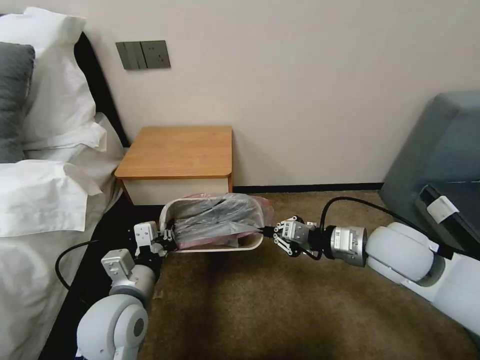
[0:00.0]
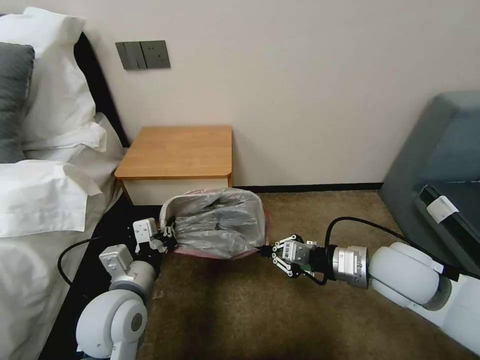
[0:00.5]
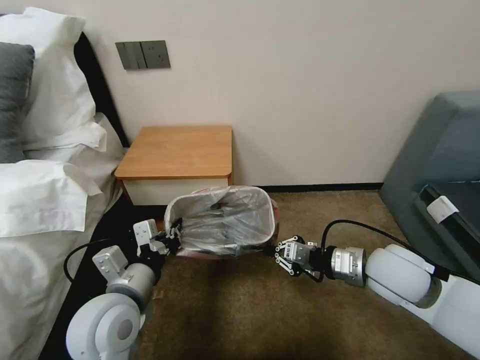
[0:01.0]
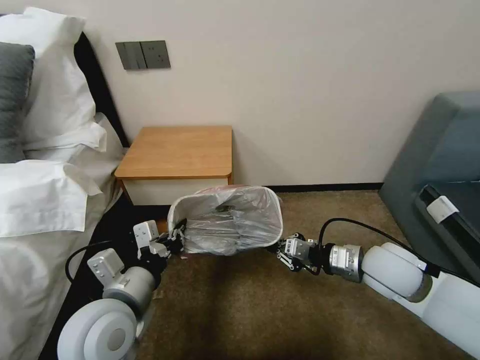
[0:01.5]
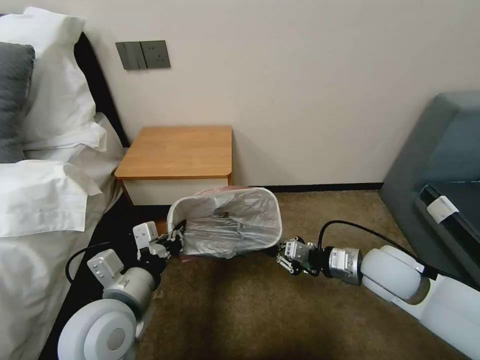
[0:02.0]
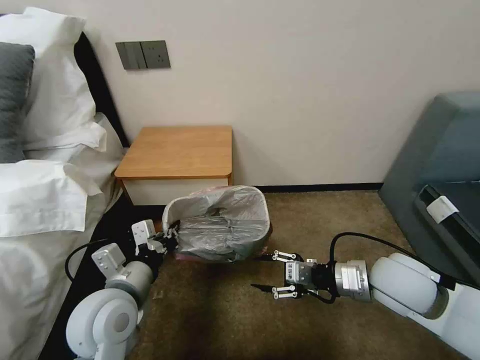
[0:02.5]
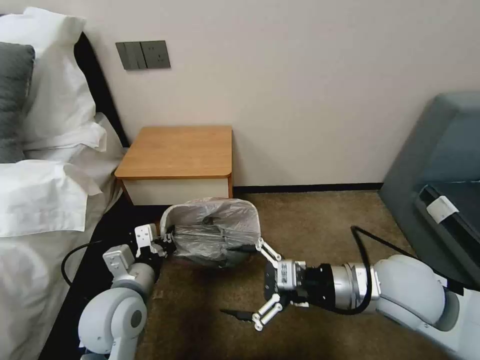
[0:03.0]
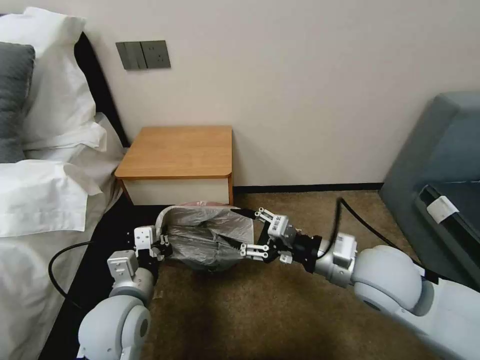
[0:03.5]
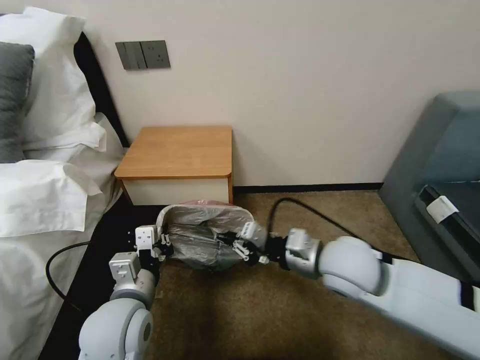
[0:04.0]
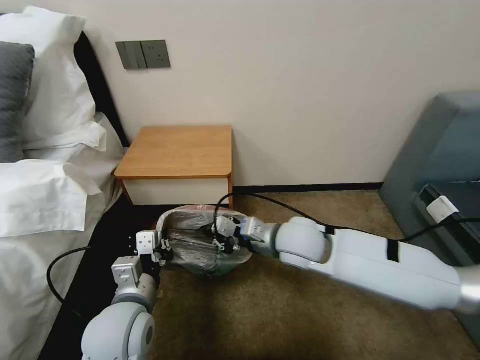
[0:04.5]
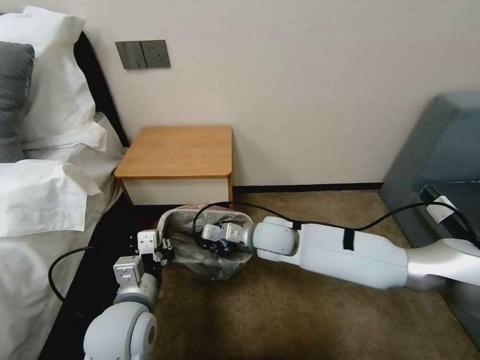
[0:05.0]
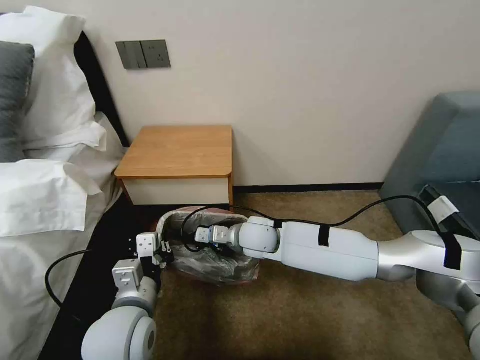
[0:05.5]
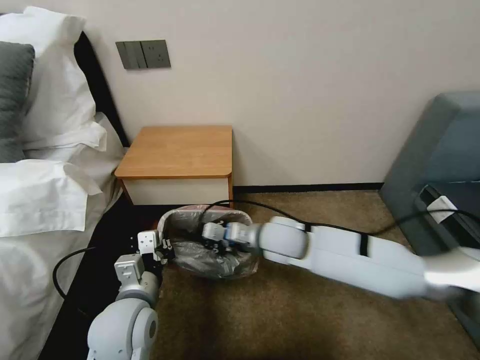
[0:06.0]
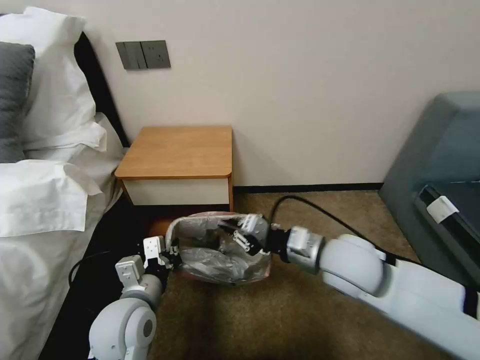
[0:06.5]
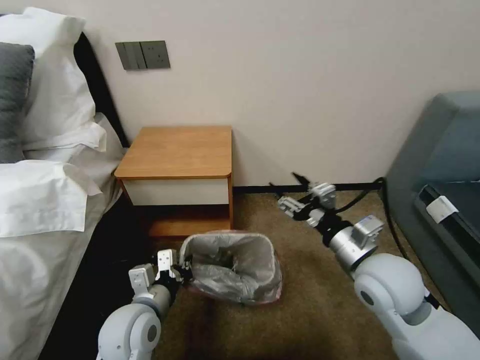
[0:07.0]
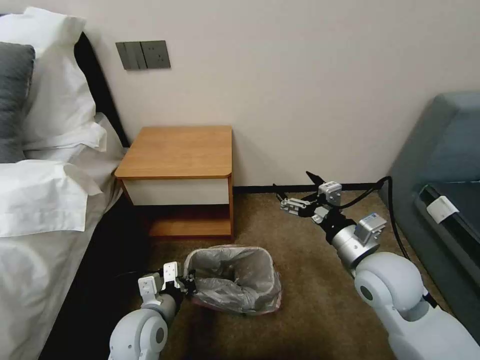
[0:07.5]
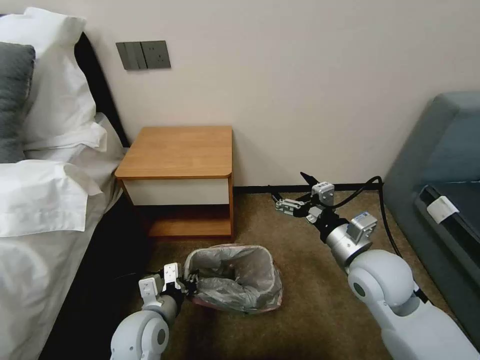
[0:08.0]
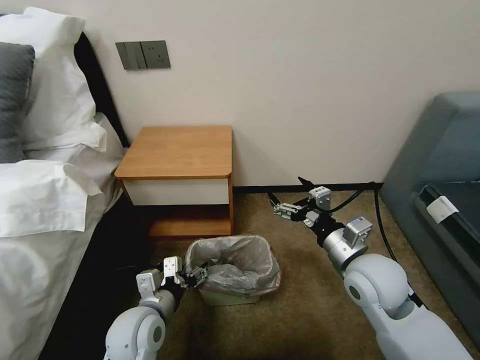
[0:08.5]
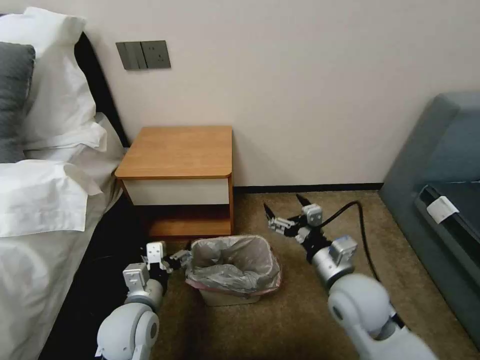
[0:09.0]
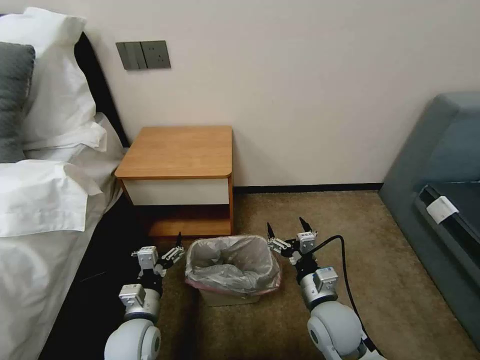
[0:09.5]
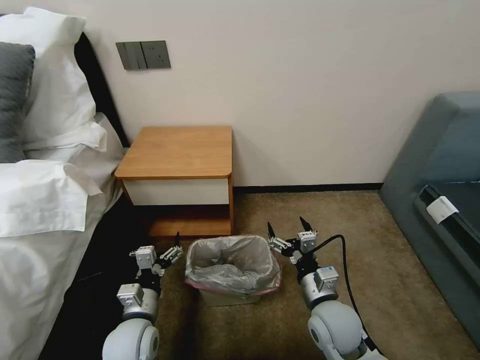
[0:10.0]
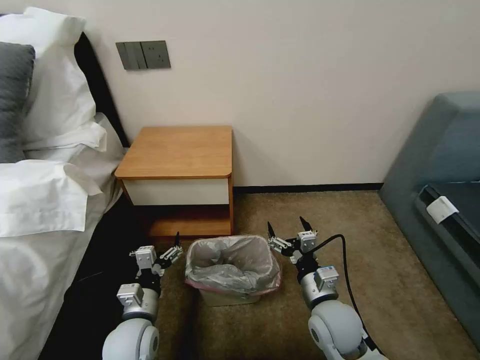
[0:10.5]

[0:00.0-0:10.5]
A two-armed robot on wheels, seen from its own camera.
Task of the whole recording: Pick up the garbage bag from the table and place it over the trash can.
0:00.0 to 0:02.0: The right gripper shifts about 5 cm downward.
0:02.0 to 0:04.0: The right gripper heads to the left, covering approximately 10 cm, and opens, then closes again.
0:04.0 to 0:06.5: The right gripper goes to the left and returns, some 15 cm each way.
0:06.5 to 0:08.5: The right gripper heads to the right, covering some 5 cm, and opens, while the left gripper shifts about 5 cm downward, and opens.
0:08.5 to 0:10.5: The left gripper moves downward, about 5 cm. The right gripper moves downward and to the left, about 15 cm.

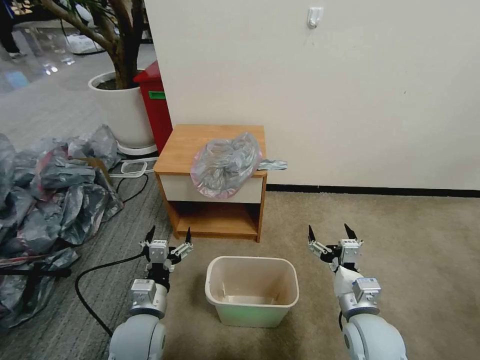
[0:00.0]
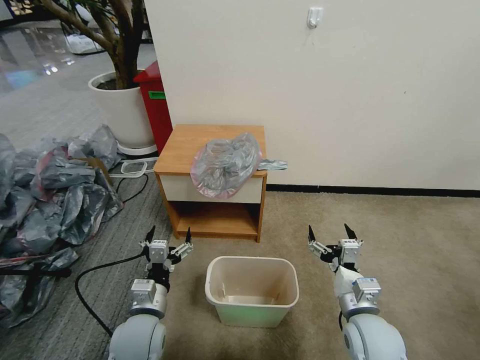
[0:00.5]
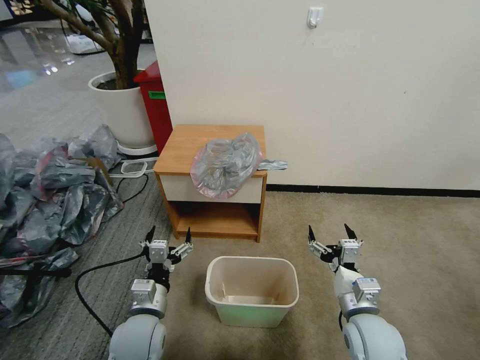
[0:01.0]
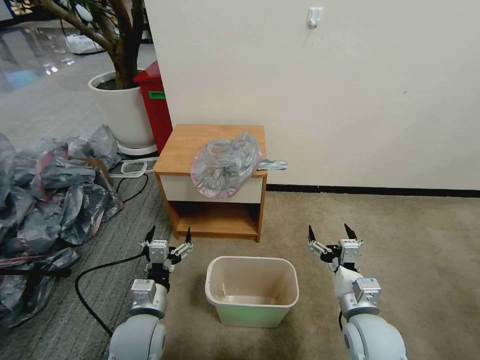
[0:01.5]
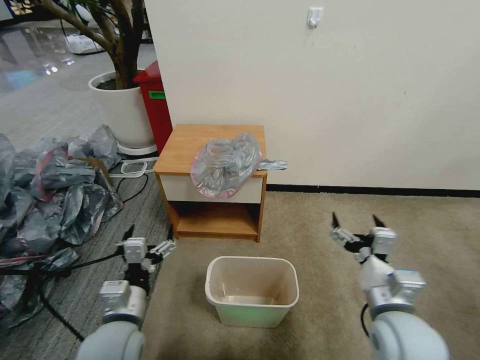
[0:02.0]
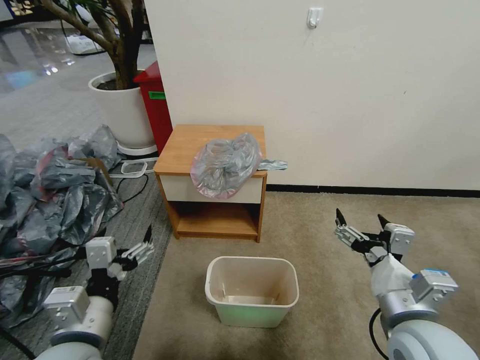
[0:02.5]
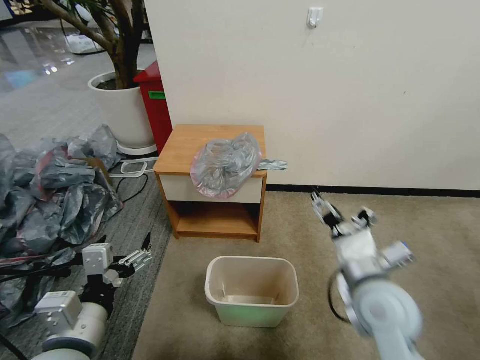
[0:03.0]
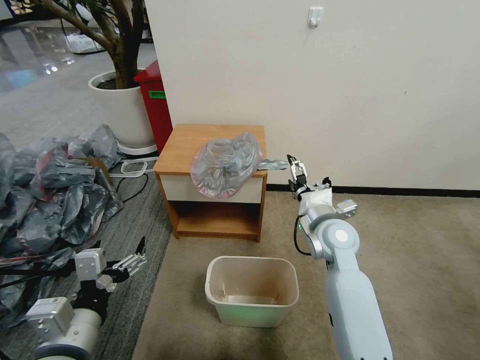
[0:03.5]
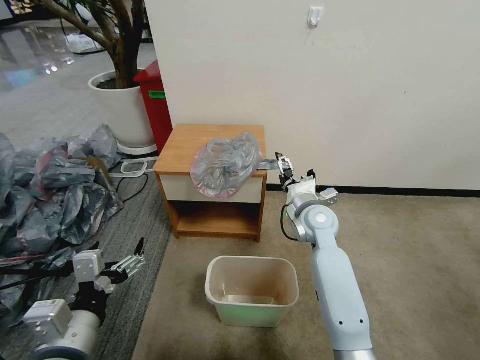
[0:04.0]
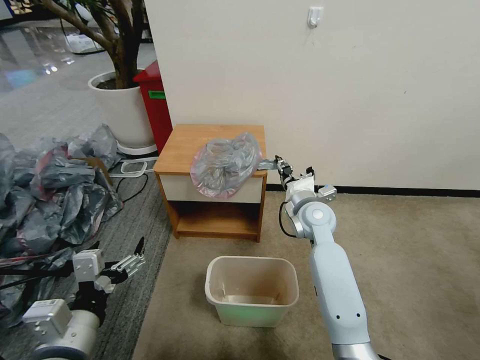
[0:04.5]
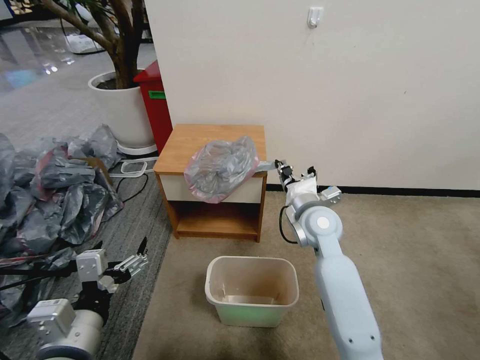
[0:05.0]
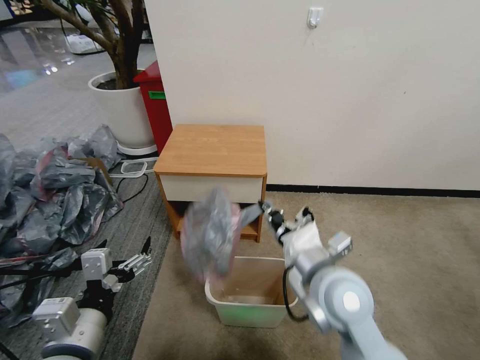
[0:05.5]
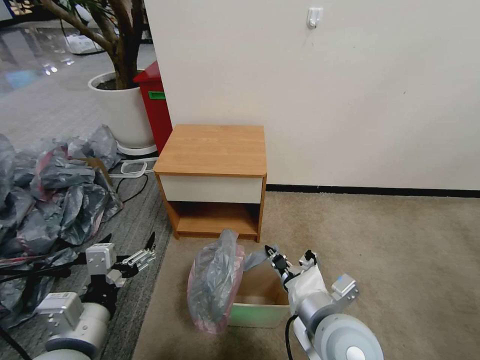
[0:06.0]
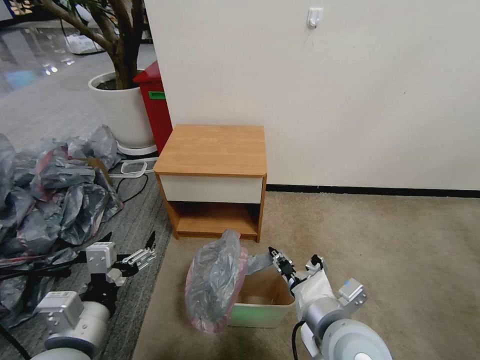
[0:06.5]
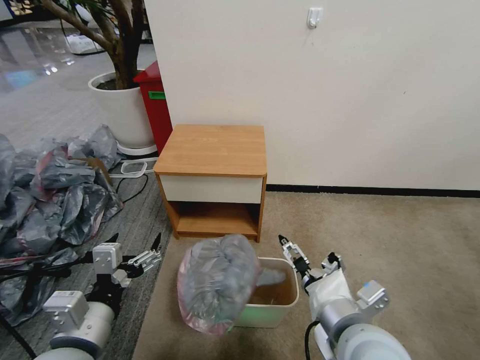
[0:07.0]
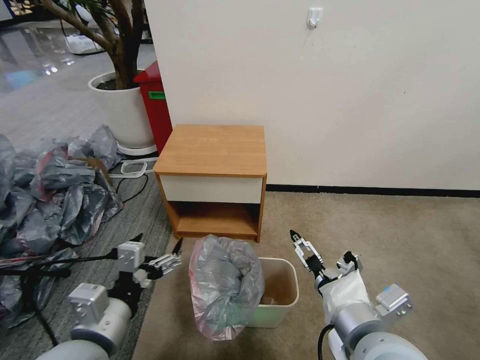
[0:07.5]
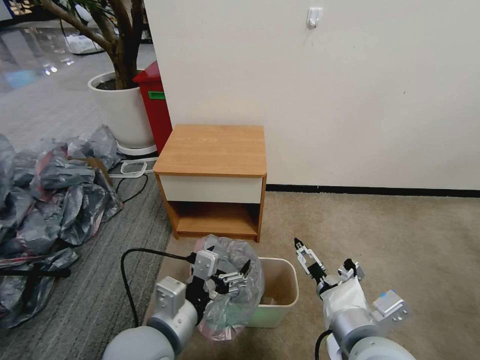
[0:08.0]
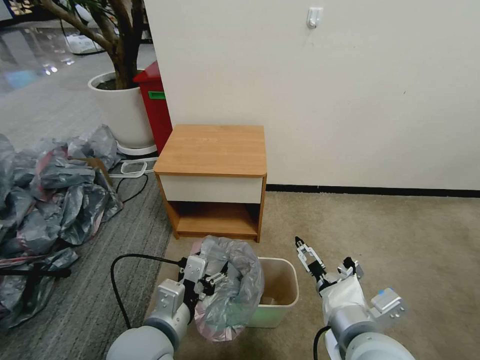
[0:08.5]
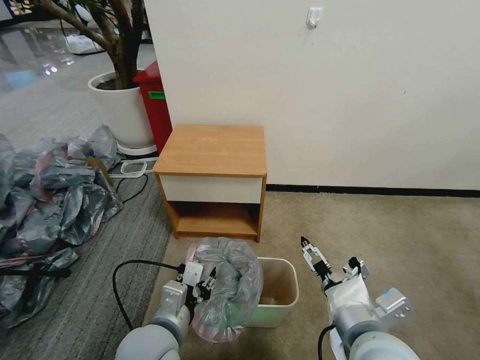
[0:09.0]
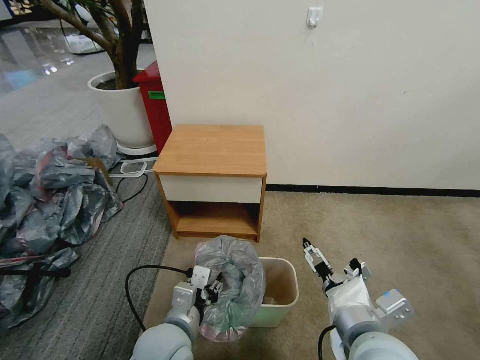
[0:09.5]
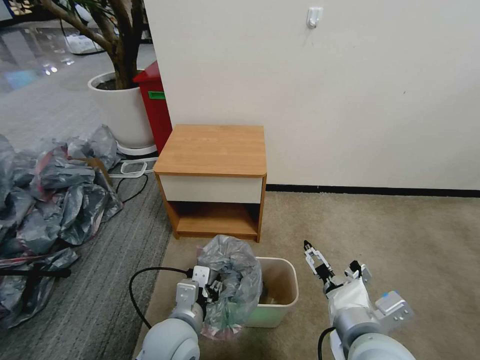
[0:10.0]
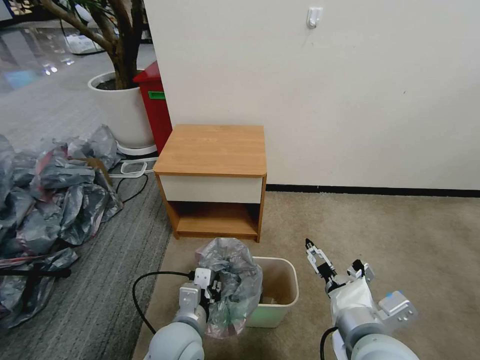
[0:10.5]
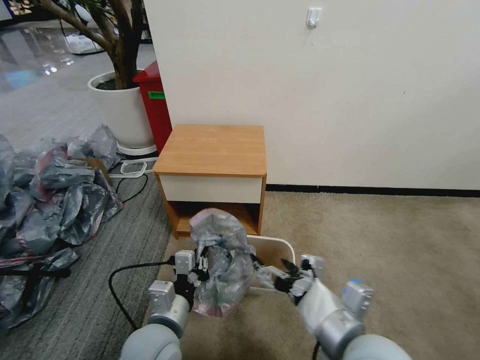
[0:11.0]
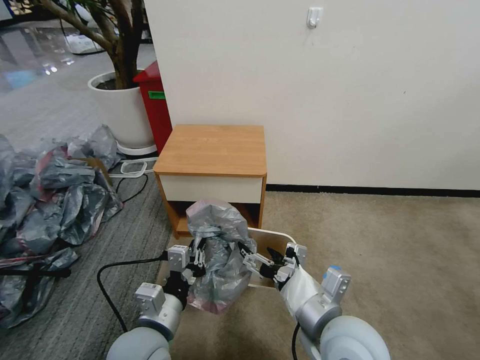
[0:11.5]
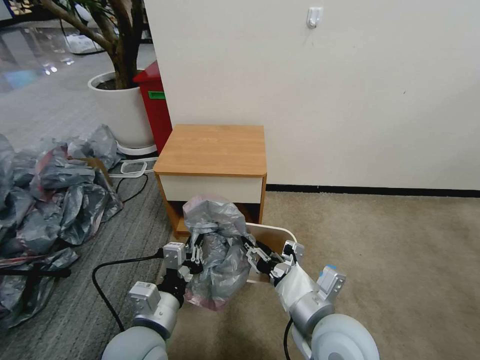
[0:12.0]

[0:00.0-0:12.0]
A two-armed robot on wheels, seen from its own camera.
Task of the whole recording: Pick up the garbage bag from the table and place it over the trash can.
0:02.0 to 0:04.0: The left gripper heads upward and backward, covering approximately 10 cm. The right gripper travels forward by roughly 25 cm.
0:04.0 to 0:06.0: The right gripper goes roughly 25 cm backward, and closes.
0:06.0 to 0:08.0: The left gripper heads to the right, covering some 10 cm. Meanwhile the right gripper changes place by some 5 cm, and opens.
0:08.0 to 0:10.0: The left gripper shifts roughly 10 cm downward, and closes up.
0:10.0 to 0:12.0: The left gripper ends up approximately 5 cm from where it was, and closes its fingers. Meanwhile the right gripper shifts by roughly 5 cm, and closes its fingers.

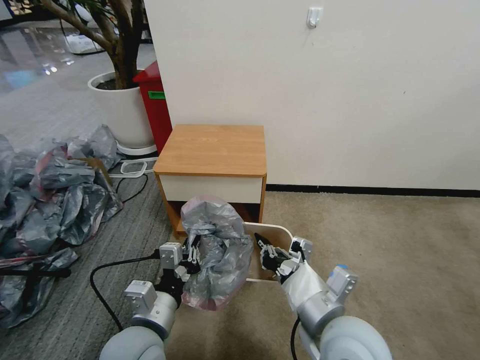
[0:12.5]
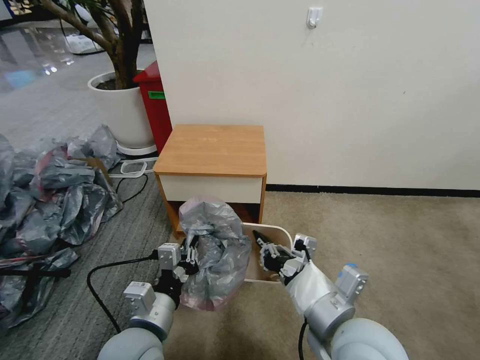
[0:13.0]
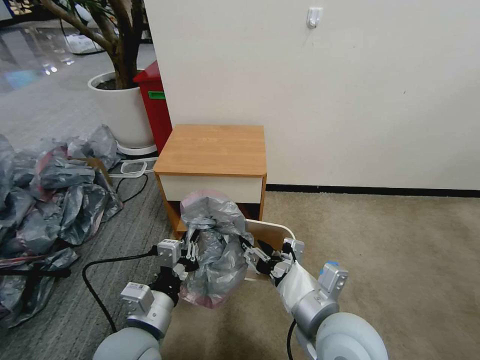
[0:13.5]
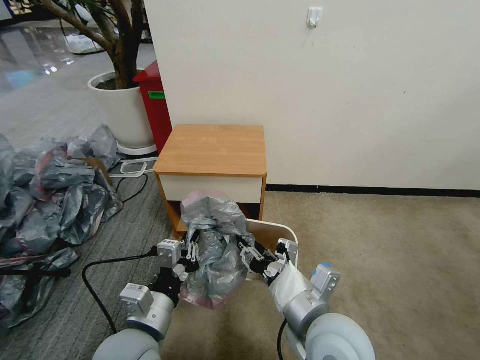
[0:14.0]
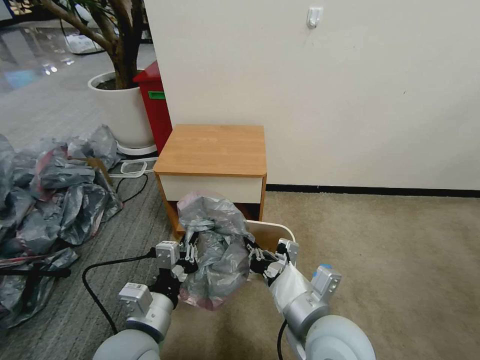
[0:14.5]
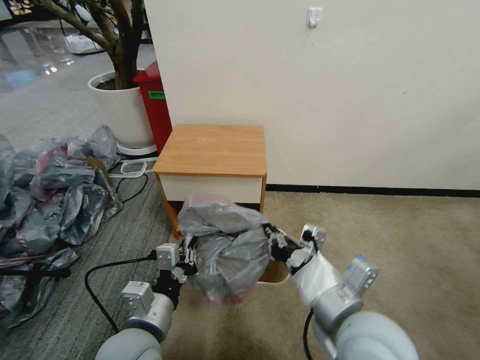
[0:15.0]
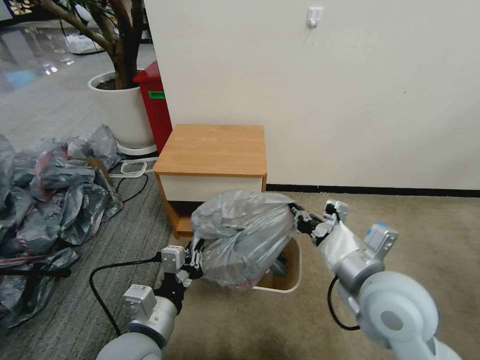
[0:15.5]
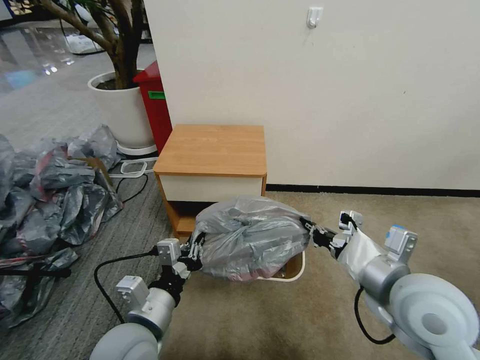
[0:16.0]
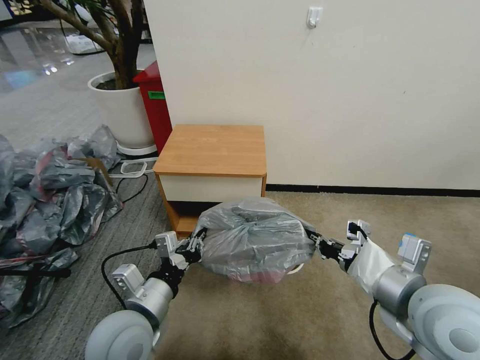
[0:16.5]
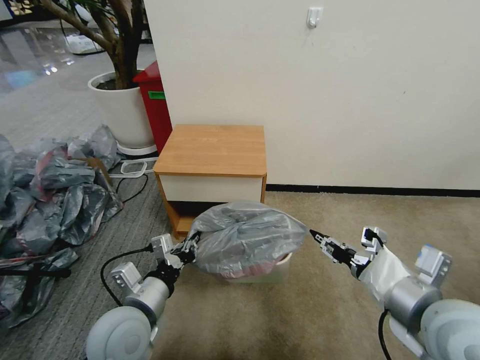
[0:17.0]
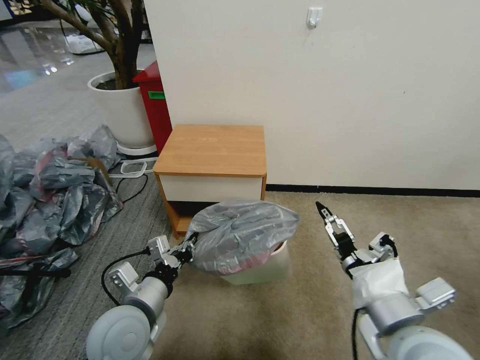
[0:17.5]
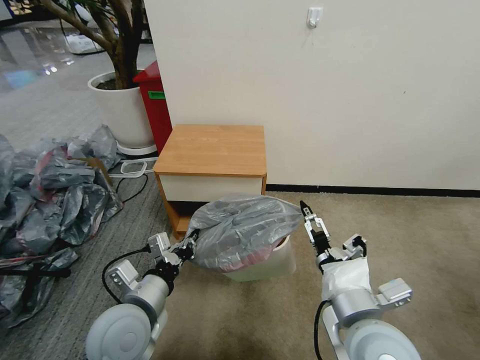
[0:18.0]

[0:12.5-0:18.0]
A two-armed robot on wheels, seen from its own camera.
Task of the whole recording: Pick up the garbage bag from the table and place it over the trash can.
0:12.5 to 0:14.5: The right gripper opens, then closes again.
0:14.5 to 0:16.0: The right gripper shifts about 15 cm to the right and upward.
0:16.0 to 0:18.0: The right gripper moves to the left, approximately 10 cm, and opens its fingers.
